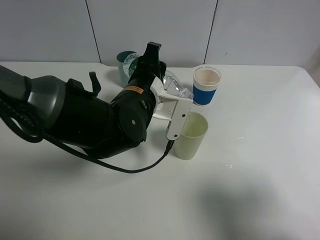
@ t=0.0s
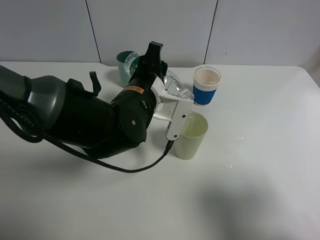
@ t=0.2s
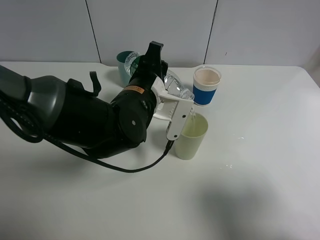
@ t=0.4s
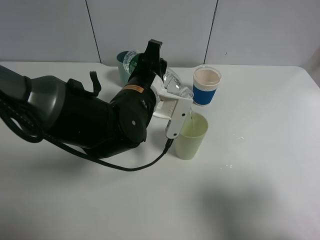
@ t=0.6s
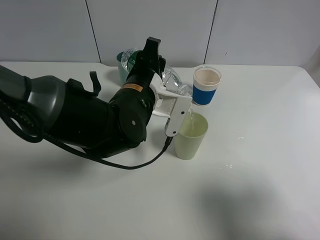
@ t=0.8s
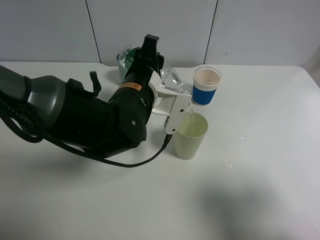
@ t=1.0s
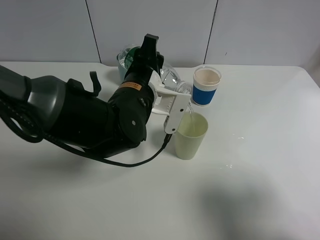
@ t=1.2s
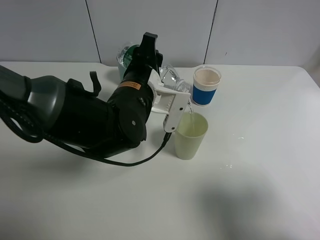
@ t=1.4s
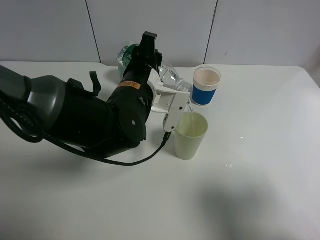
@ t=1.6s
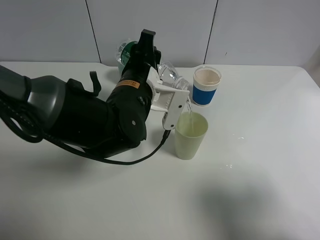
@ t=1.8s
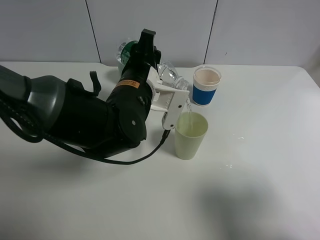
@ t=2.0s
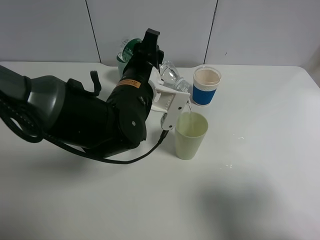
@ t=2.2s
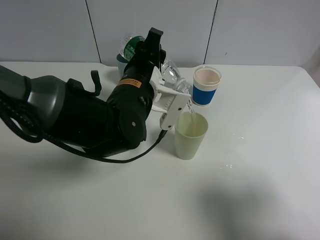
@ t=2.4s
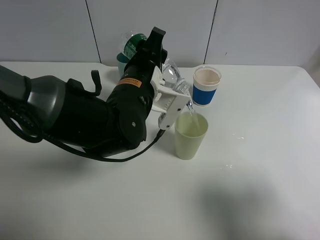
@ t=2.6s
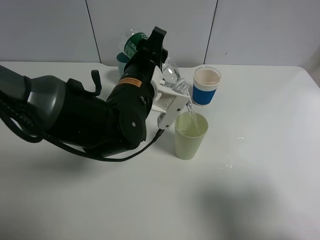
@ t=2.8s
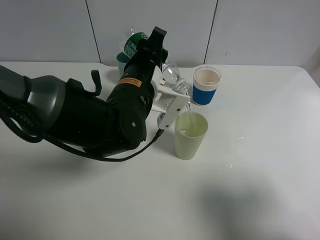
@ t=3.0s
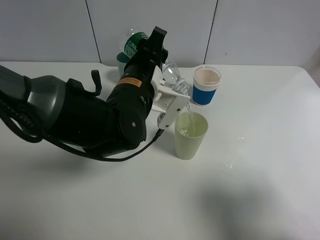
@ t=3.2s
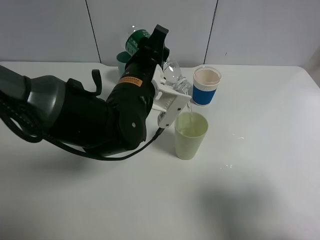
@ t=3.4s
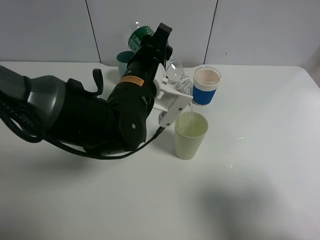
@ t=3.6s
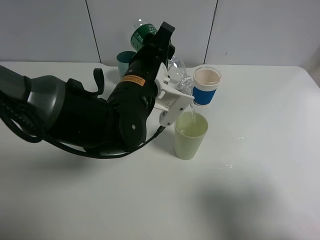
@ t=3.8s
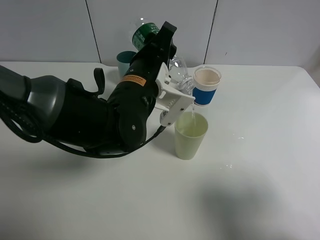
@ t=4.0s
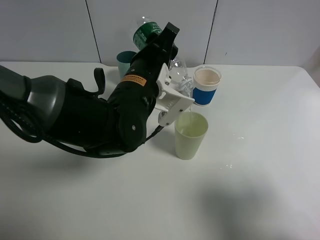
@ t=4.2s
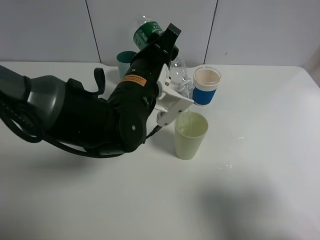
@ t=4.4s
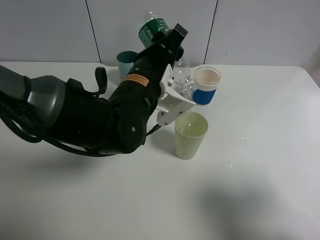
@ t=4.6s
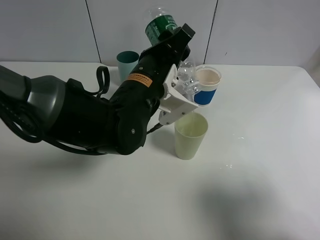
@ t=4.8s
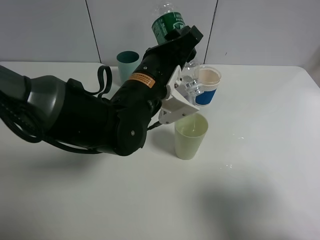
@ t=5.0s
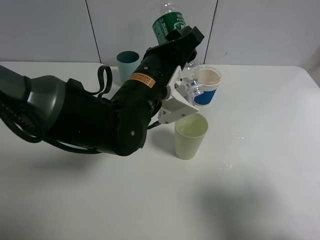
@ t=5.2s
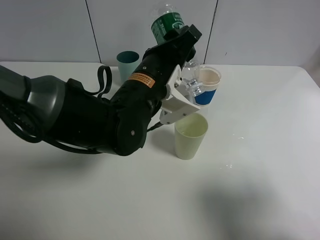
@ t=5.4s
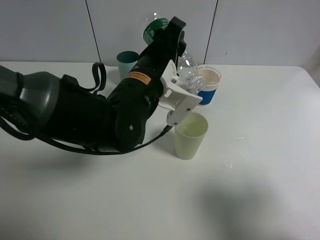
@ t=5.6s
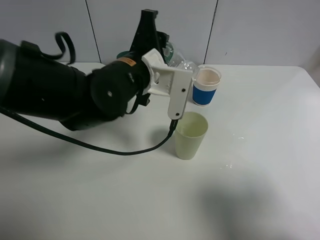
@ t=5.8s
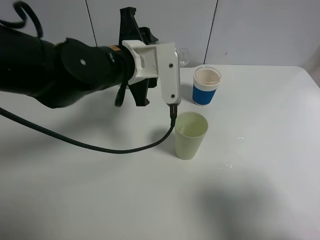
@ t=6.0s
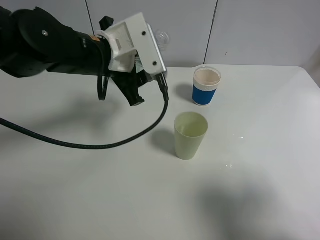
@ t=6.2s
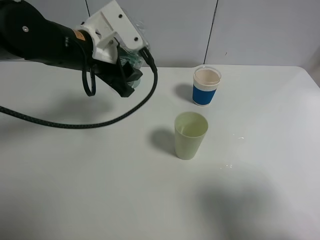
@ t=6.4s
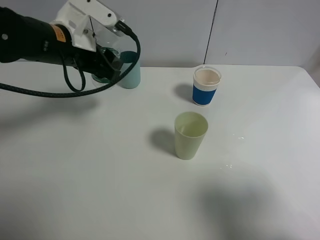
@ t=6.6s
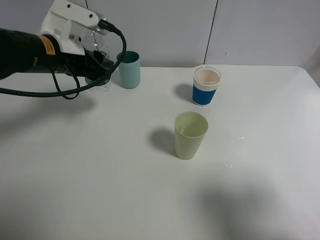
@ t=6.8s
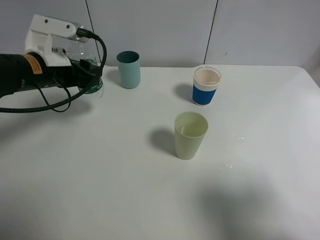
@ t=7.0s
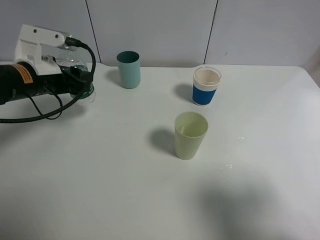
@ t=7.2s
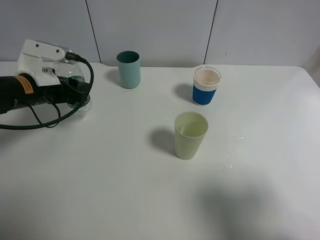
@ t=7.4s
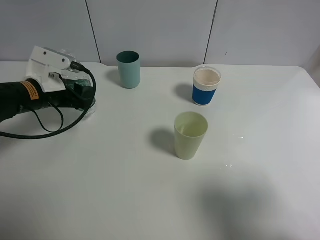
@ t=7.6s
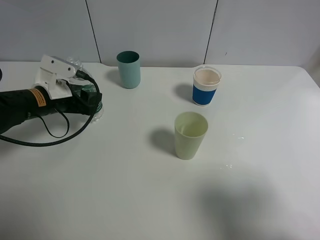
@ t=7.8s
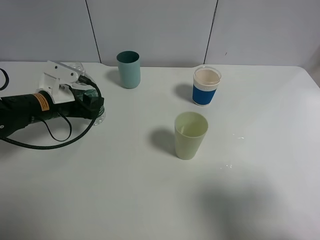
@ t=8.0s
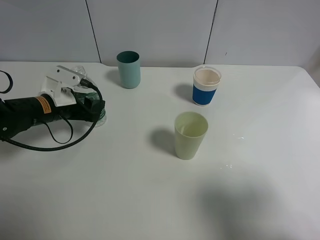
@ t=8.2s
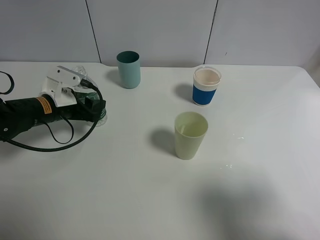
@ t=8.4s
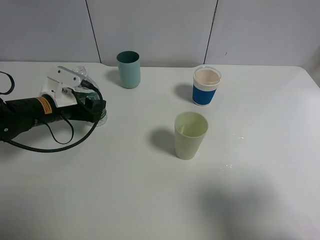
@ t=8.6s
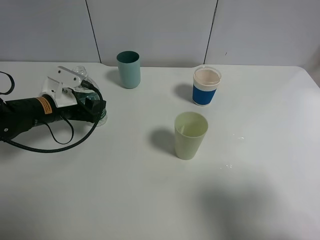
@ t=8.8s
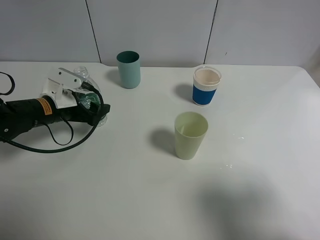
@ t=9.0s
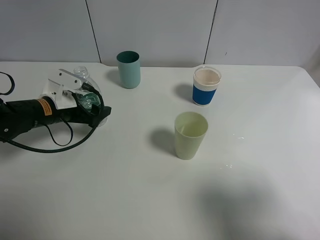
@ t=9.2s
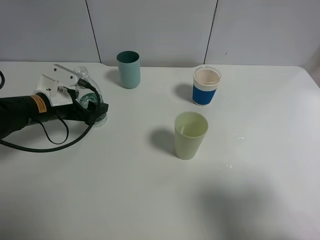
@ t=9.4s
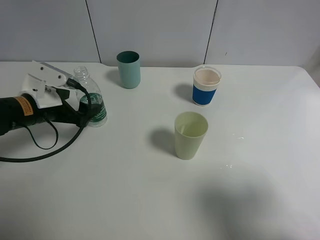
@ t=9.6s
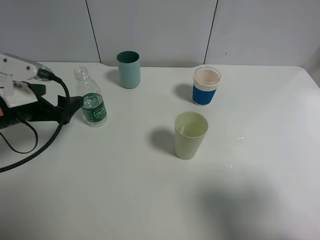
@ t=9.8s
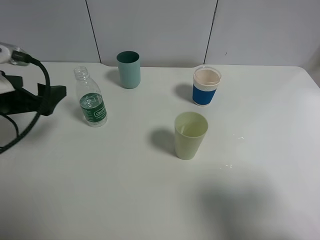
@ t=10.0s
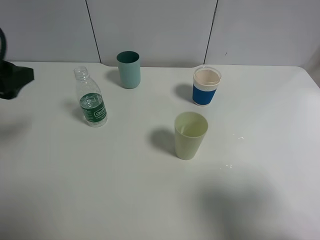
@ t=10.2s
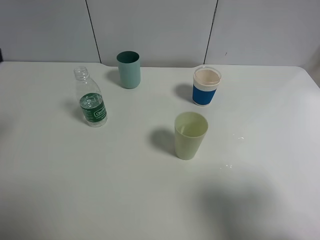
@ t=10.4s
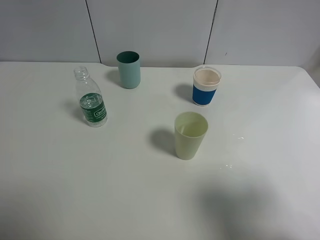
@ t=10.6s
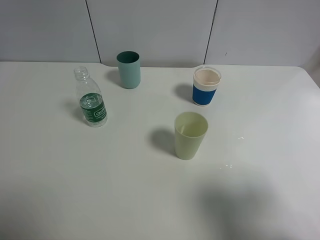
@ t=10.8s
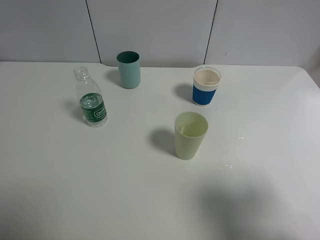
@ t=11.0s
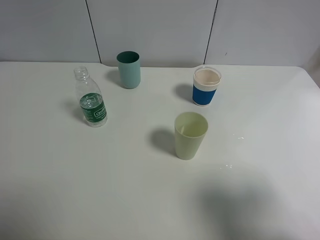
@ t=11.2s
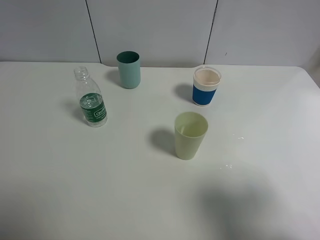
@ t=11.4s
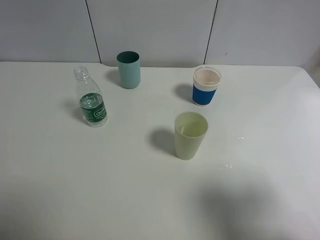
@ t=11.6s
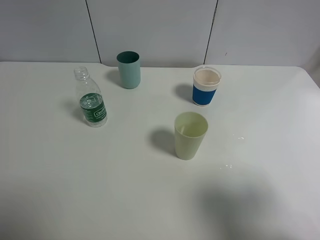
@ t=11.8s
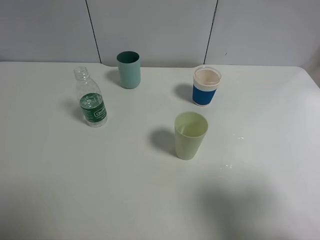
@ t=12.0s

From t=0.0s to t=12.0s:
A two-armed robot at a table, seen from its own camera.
Task of the whole recording: use a clamp to hold the bottle of the drink, pour the beverage into a random cup, then clamp the cup containing the drink and pour the drink into another random cup.
Step, from t=0.0s to t=5.8s: Pour the water into the green plastic cup with left gripper.
Step, from t=6.0s to t=9.6s: Place the water bottle on the table with left gripper.
From t=0.0s to t=3.0s: The grippers stay close to where they were, moving slightly.
From t=3.0s to t=4.4s: There are only small adjustments of the grippers.
From t=6.0s to t=7.6s: The left gripper shifts approximately 20 cm to the left.
From t=7.6s to t=9.0s: The left gripper opens up.
From t=9.0s to t=10.4s: The left gripper travels upward and backward by about 25 cm, and opens up.

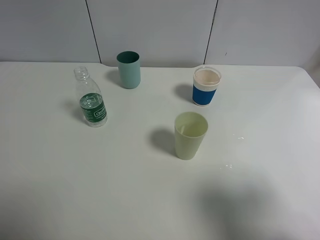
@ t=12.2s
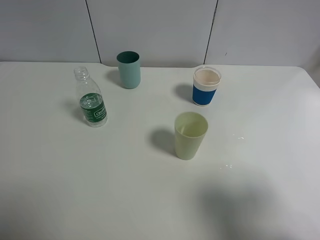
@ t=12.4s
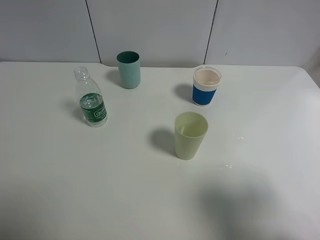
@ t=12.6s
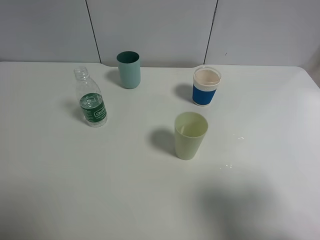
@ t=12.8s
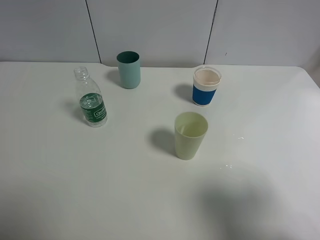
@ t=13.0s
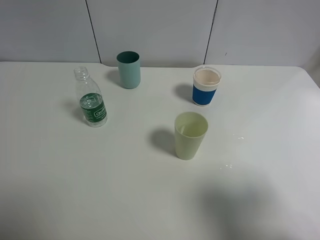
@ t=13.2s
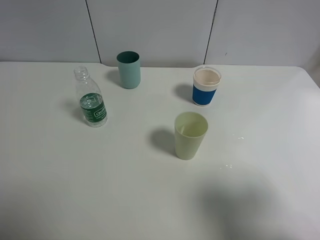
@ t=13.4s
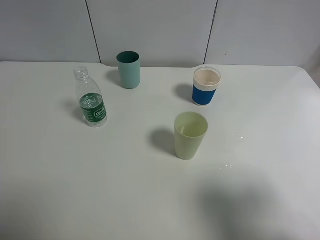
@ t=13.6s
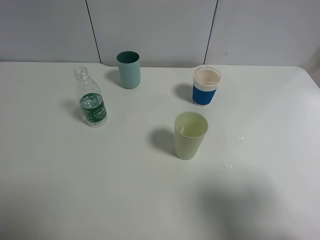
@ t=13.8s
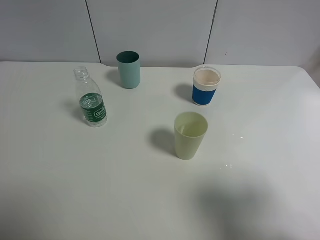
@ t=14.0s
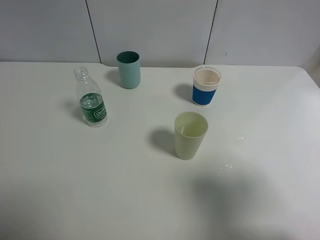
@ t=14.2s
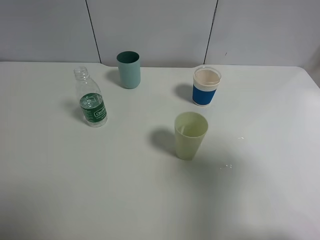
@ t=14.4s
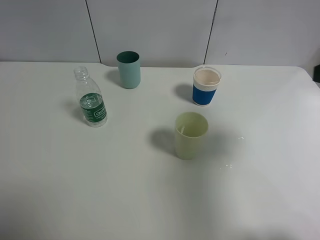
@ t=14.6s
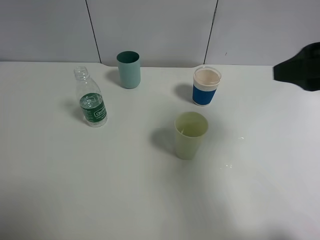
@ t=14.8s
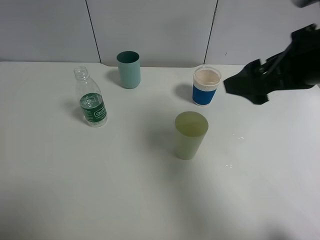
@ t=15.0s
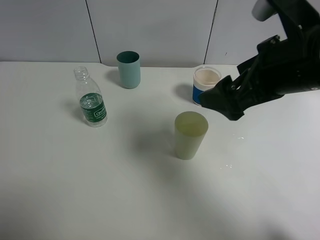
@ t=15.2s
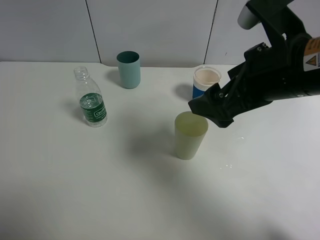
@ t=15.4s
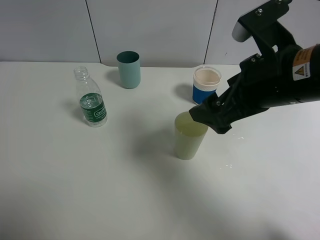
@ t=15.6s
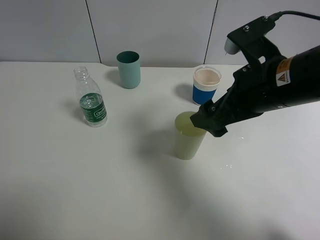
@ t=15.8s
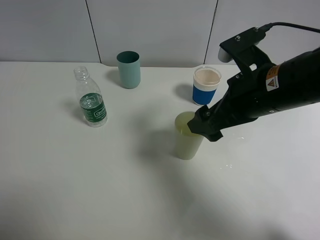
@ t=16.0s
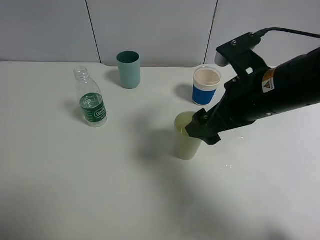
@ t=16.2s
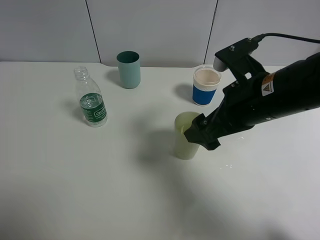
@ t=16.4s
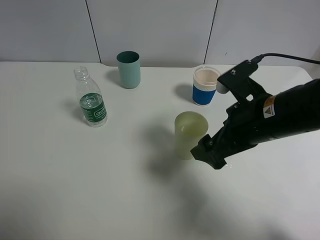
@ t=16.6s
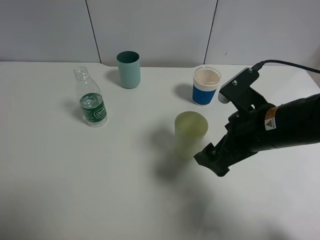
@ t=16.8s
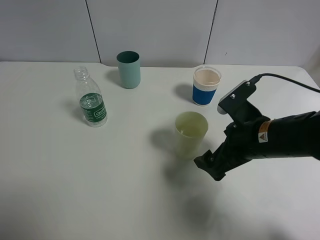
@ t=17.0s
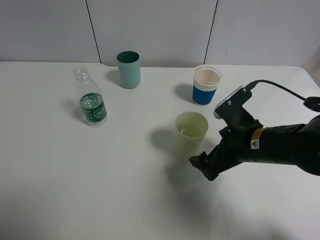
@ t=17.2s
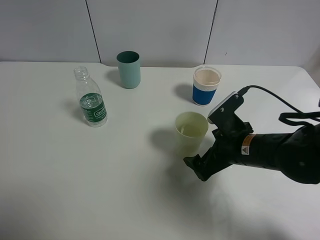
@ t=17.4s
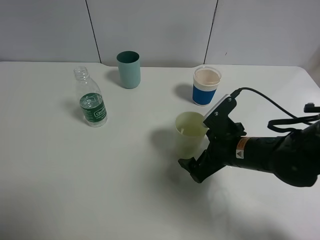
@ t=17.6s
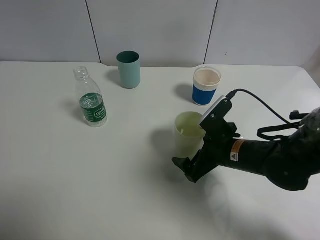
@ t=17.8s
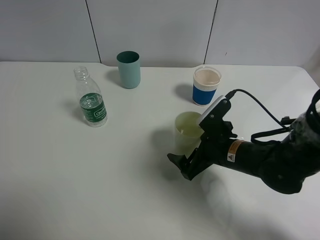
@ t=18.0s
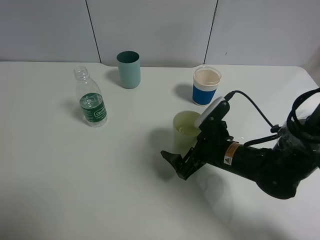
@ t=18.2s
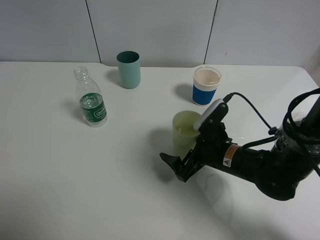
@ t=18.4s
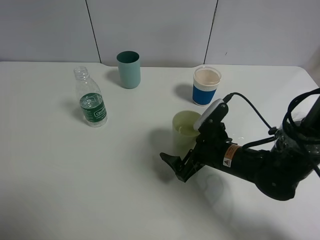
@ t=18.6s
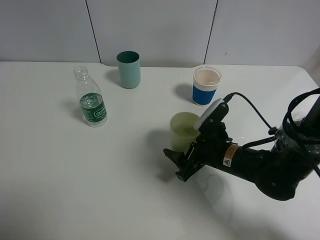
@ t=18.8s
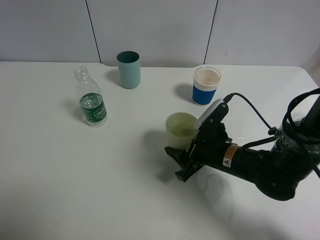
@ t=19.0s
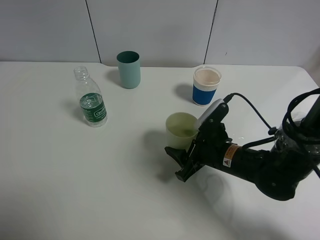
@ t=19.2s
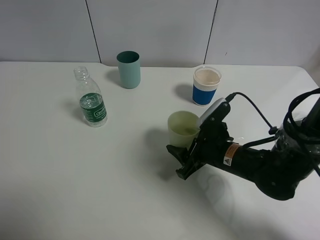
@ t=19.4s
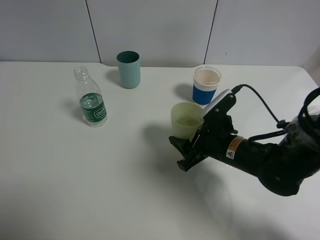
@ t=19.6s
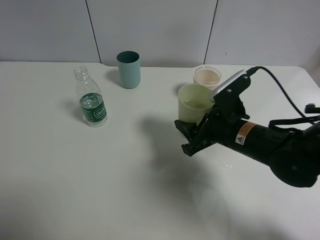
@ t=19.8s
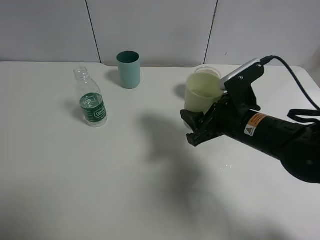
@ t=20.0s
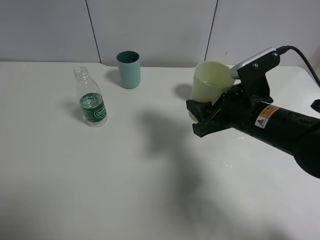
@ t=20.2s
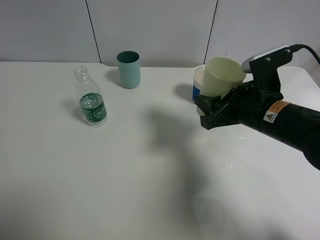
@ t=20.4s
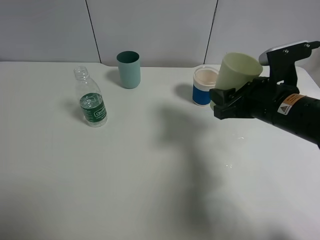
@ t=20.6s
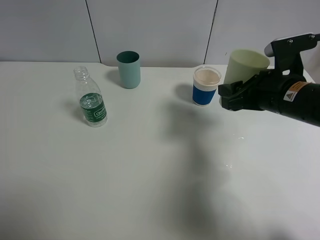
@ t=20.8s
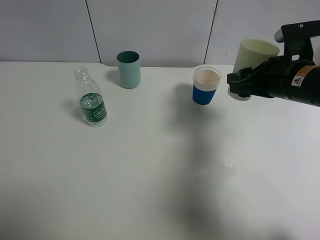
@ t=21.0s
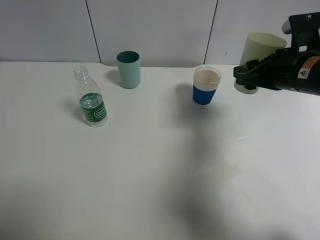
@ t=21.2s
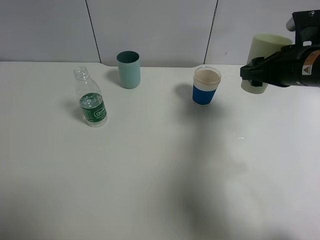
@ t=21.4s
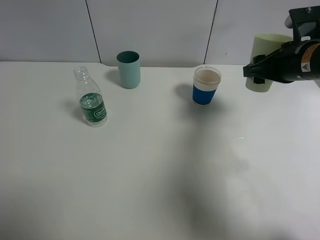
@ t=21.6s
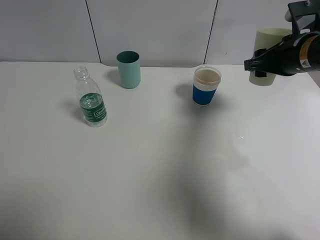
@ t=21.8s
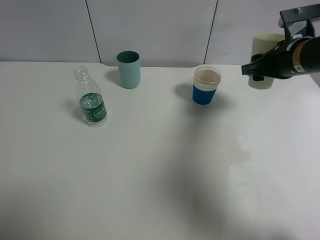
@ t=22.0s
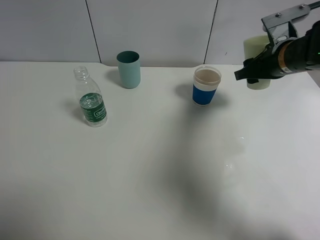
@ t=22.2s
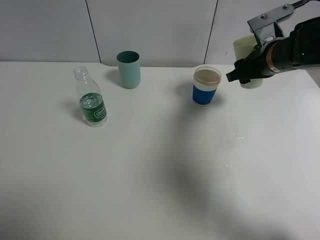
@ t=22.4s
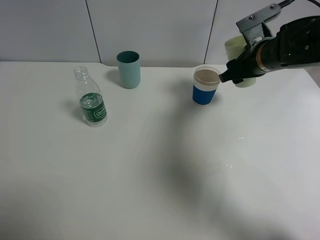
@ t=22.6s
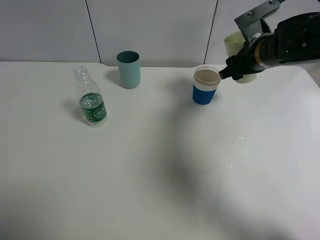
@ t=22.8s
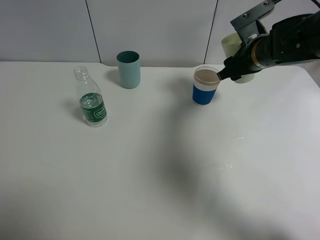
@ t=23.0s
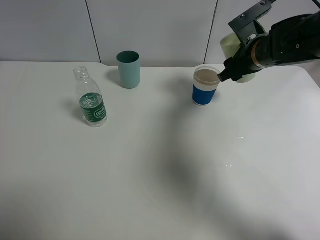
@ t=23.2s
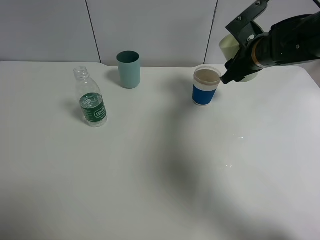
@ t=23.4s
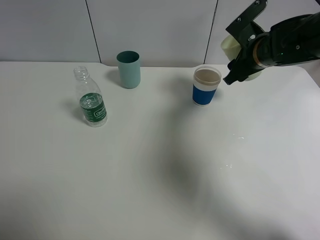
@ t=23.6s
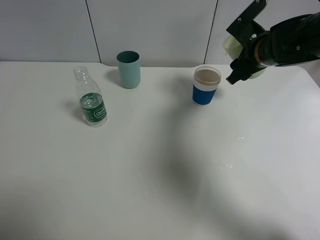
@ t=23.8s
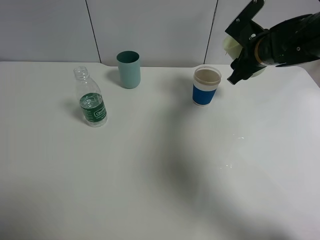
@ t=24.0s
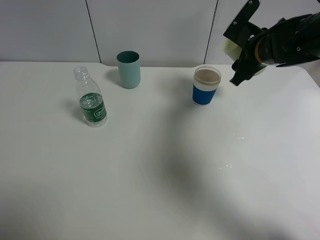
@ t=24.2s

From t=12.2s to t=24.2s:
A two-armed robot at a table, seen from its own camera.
Task of the whole recording: use a clamp to hold the bottle of the drink, pour the beverage into a random cup, then clamp the cup containing the drink and pour the drink into another random cup.
Step, from t=12.2s to t=19.8s: Pick up the green plastic cup with right gripper.
From t=12.2s to t=13.8s: Both grippers stay about where they are.
From t=13.8s to t=15.2s: The right gripper shifts some 20 cm forward and to the left.
From t=15.2s to t=16.6s: The right gripper travels downward by about 10 cm.
From t=16.6s to t=18.2s: The right gripper shifts roughly 15 cm downward.
From t=18.2s to t=19.8s: The right gripper closes.
From t=19.8s to t=21.2s: The right gripper shifts roughly 15 cm upward and to the right.
From t=21.2s to t=22.6s: The right gripper goes about 10 cm forward.
